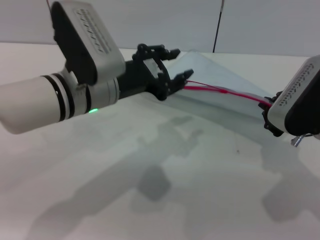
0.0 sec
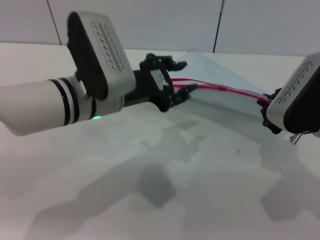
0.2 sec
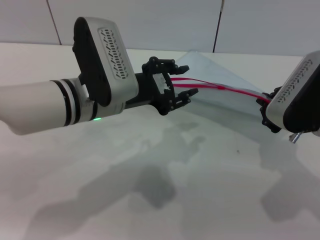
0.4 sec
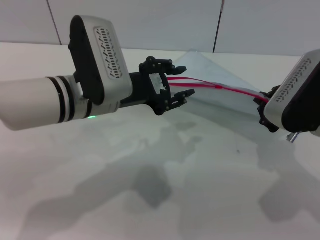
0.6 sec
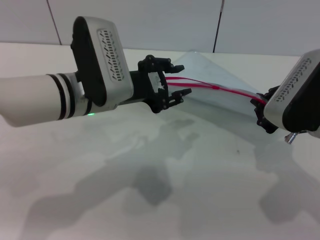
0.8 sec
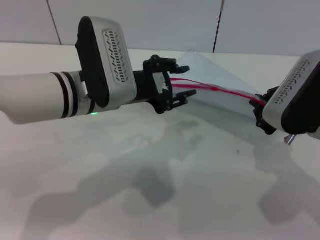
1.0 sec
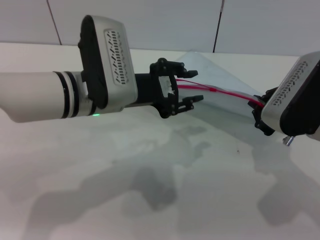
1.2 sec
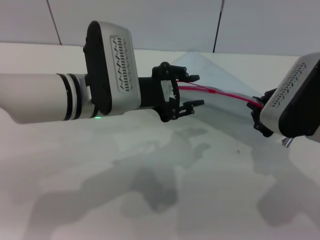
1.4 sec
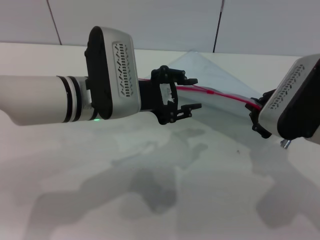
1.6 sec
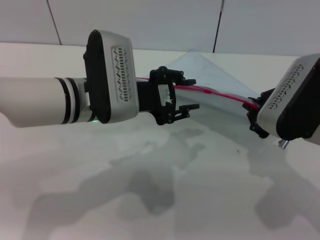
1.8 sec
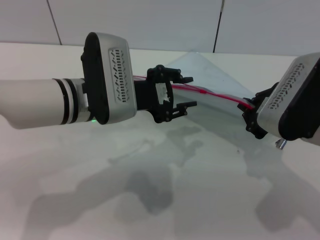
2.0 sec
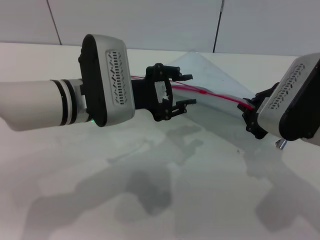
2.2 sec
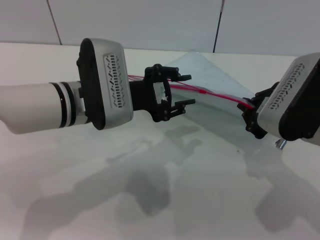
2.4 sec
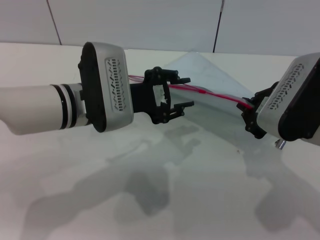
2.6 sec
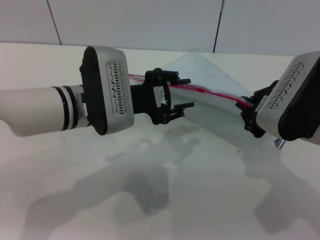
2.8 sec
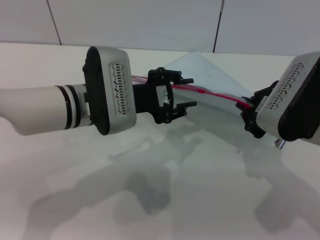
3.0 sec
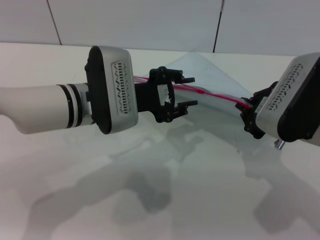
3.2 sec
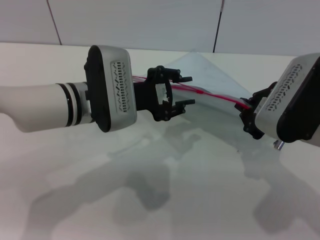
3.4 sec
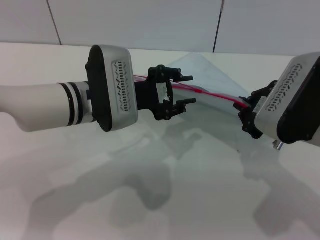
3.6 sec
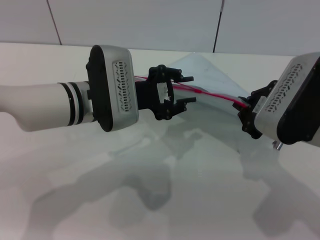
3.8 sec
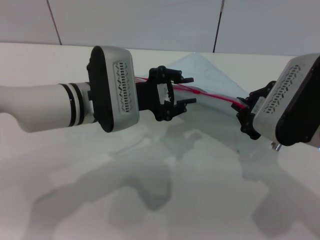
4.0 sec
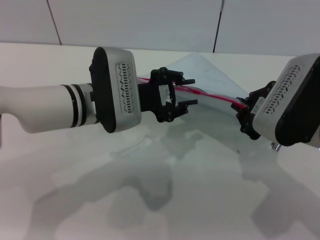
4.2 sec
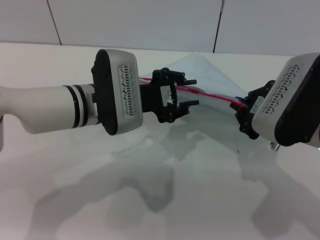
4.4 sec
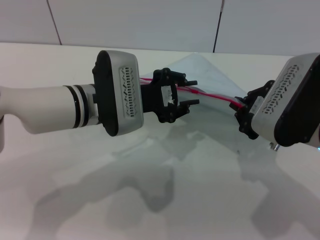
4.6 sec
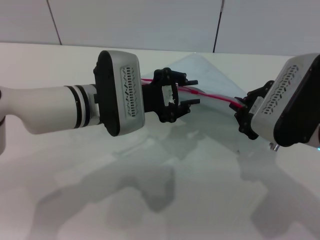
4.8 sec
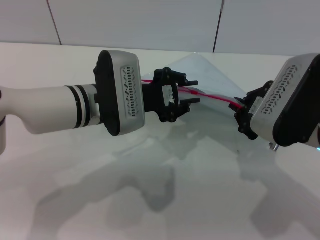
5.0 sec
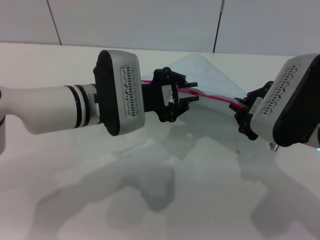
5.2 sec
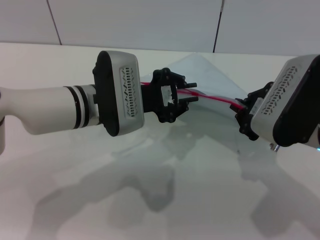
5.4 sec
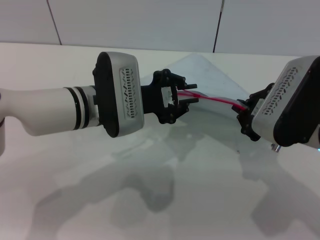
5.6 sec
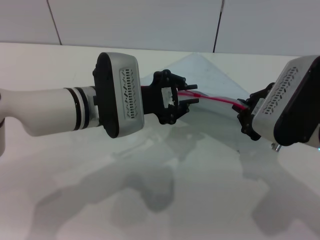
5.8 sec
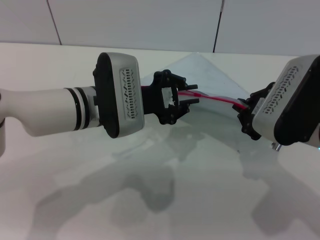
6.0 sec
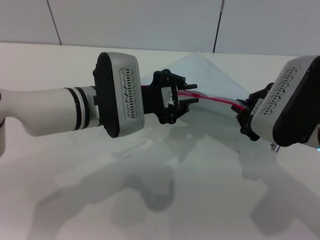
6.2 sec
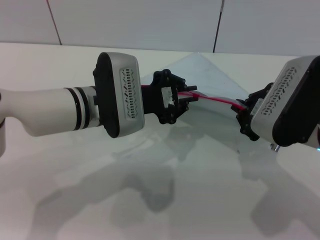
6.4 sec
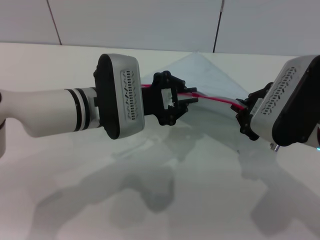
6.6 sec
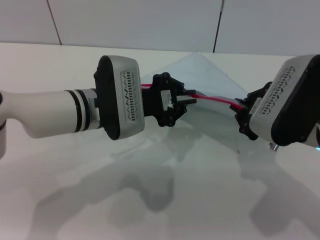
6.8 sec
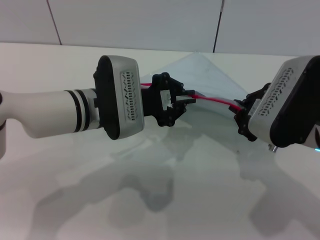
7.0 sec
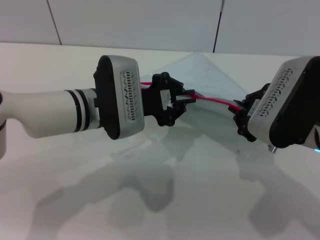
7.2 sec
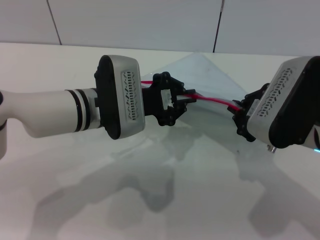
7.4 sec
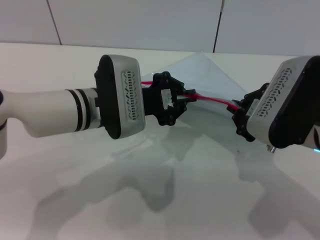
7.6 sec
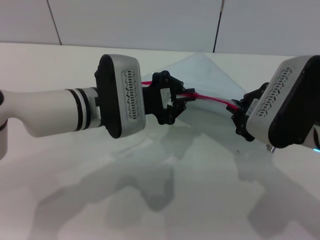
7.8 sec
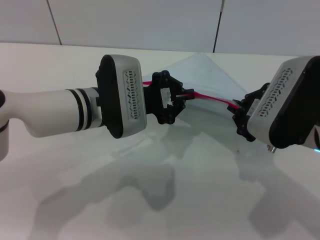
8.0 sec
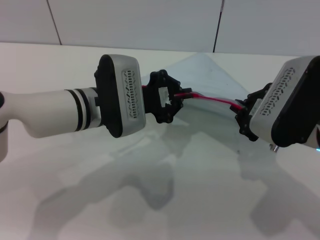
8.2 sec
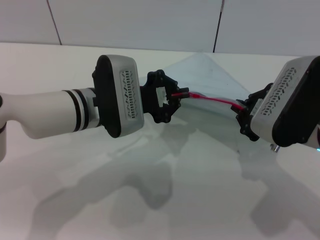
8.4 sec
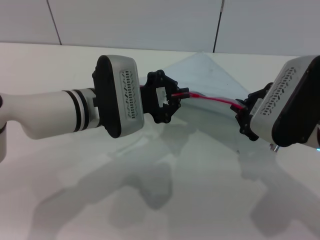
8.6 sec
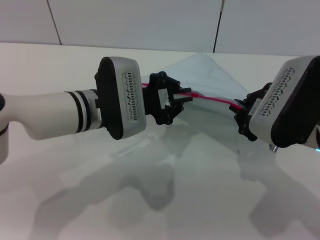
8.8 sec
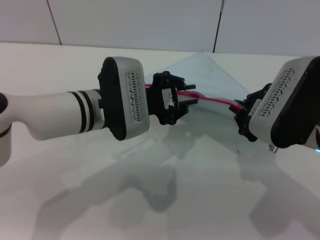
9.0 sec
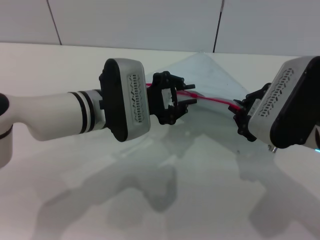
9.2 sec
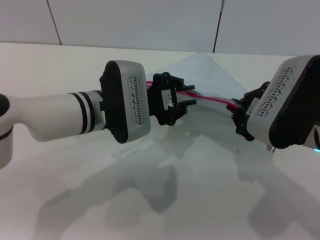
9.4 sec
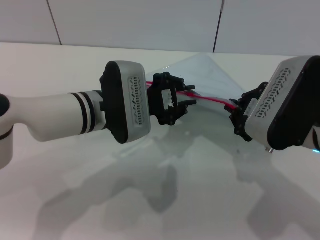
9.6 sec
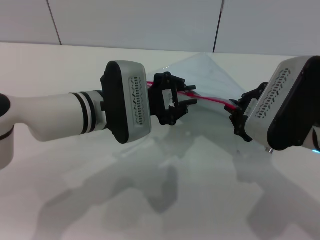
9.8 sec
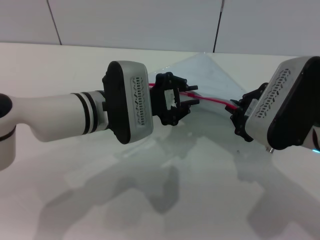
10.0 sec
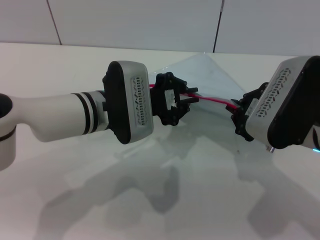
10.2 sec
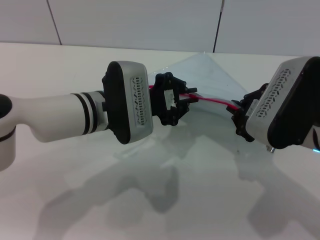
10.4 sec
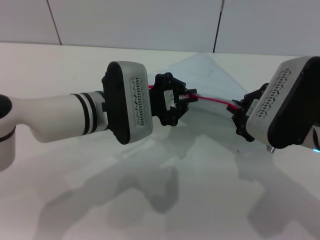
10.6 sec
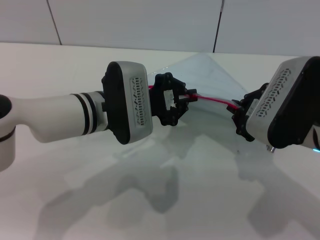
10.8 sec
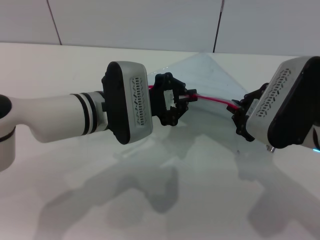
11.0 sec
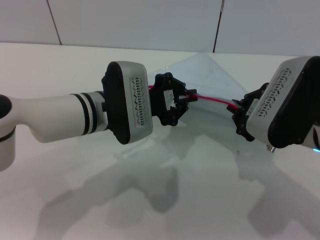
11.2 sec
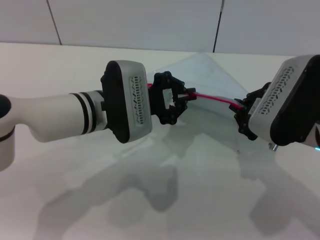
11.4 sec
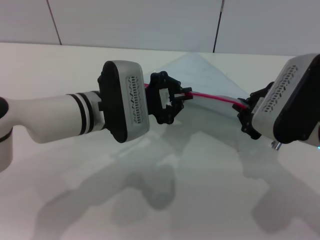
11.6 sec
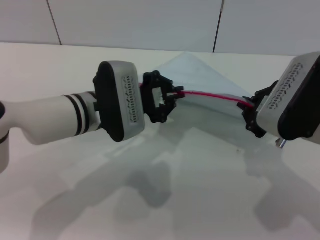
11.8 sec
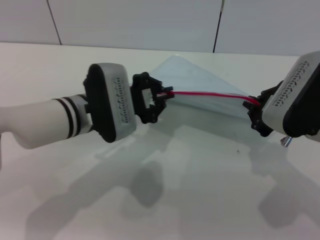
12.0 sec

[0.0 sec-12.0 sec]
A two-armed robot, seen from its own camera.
1.6 sec to 3.0 sec: The grippers stay close to where they were, moving slightly.
3.0 sec to 6.0 sec: The two grippers keep their place.
6.0 sec to 10.4 sec: Both grippers stay put.
10.4 sec to 12.0 sec: The grippers move only a little.

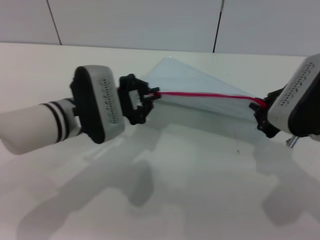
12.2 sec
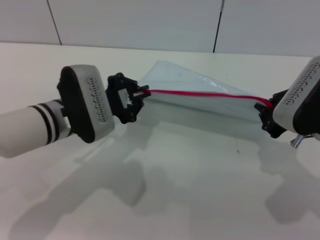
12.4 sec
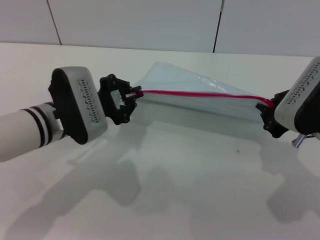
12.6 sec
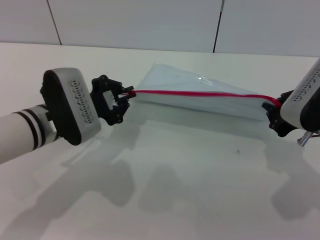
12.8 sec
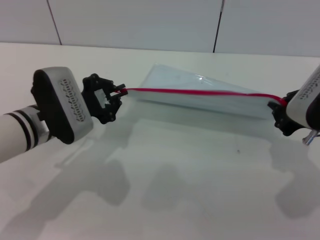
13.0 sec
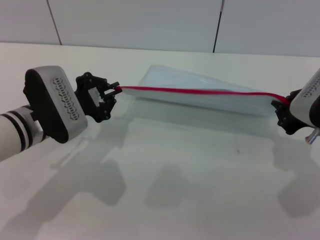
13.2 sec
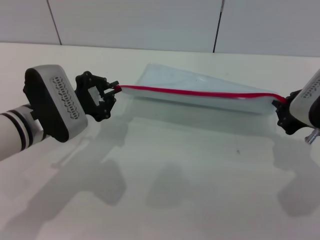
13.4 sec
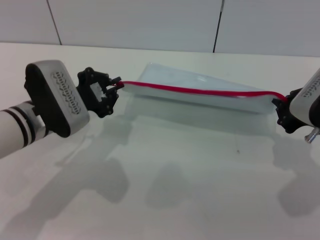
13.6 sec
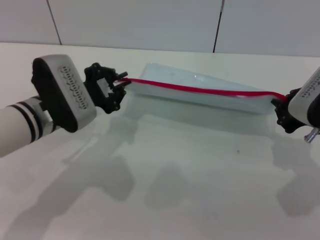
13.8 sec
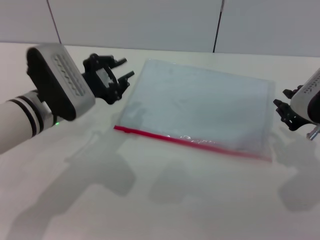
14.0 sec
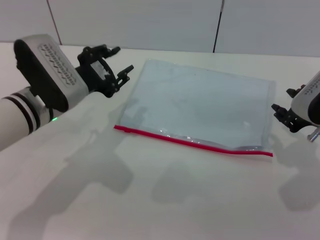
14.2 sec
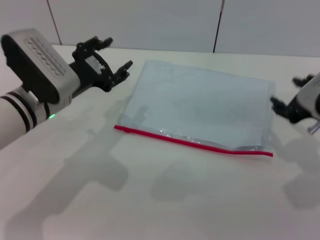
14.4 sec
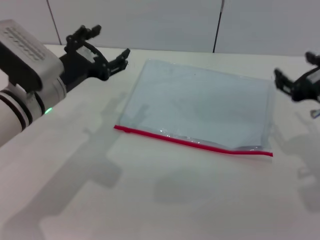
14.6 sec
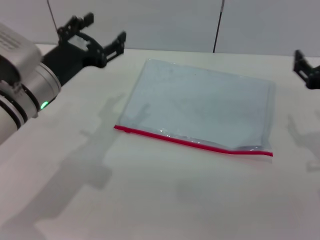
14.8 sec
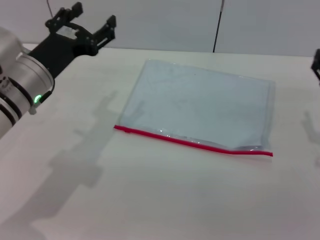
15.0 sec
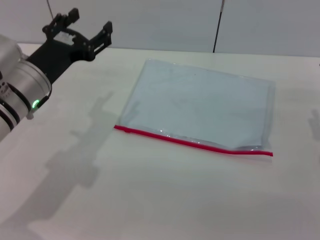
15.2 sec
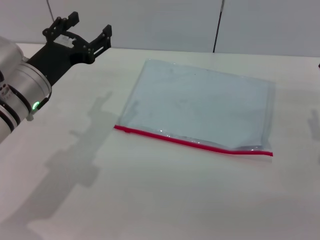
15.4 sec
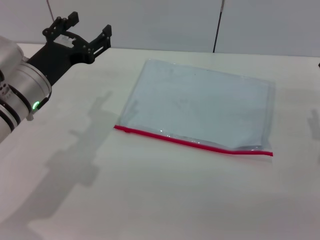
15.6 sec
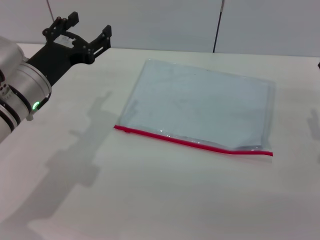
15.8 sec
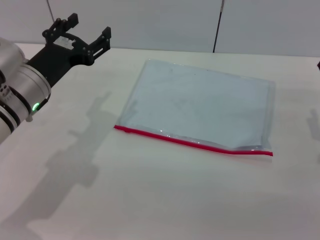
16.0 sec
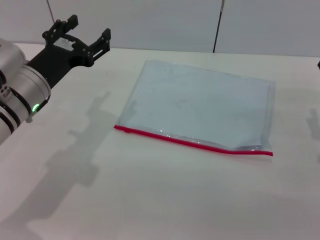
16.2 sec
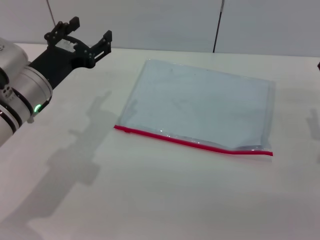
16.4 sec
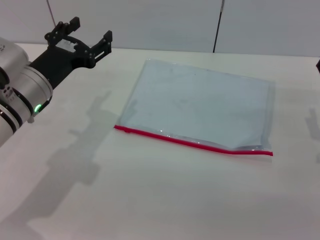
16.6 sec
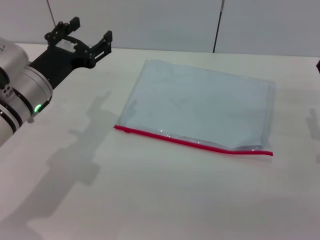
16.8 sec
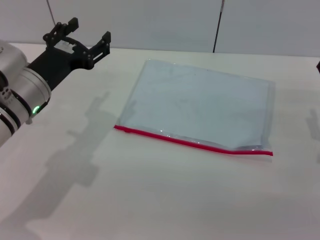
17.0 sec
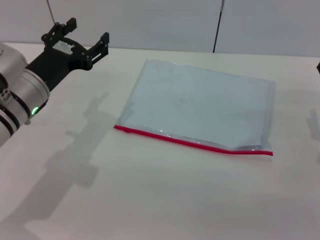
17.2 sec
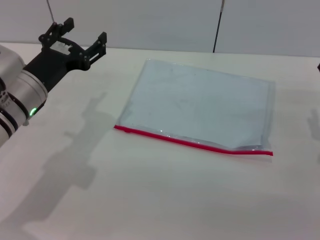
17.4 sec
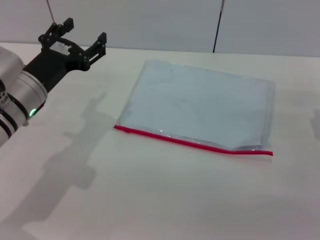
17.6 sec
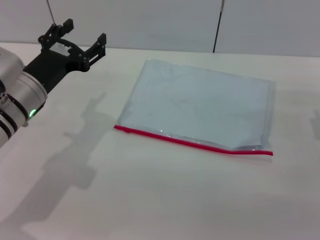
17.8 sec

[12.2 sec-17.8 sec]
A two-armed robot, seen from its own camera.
Step, 14.0 sec to 14.6 sec: Place the transparent plastic bag.
12.2 sec to 13.6 sec: The grippers stay close to where they were, moving slightly.
13.6 sec to 15.0 sec: The left gripper opens; the right gripper moves downward, approximately 5 cm, and opens.
15.0 sec to 16.4 sec: There are only small adjustments of the grippers.
16.4 sec to 17.8 sec: Both grippers stay put.
